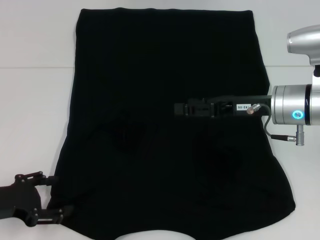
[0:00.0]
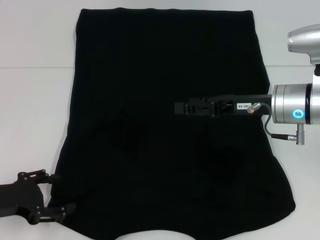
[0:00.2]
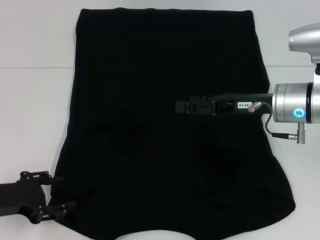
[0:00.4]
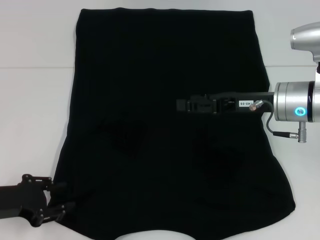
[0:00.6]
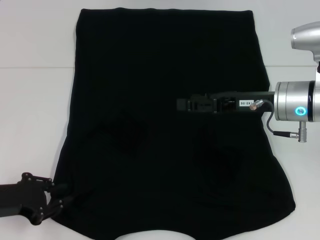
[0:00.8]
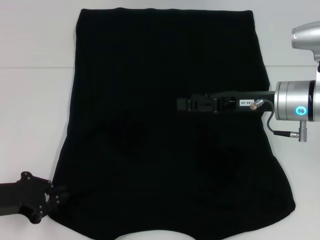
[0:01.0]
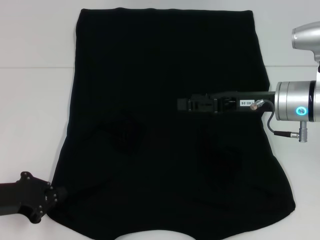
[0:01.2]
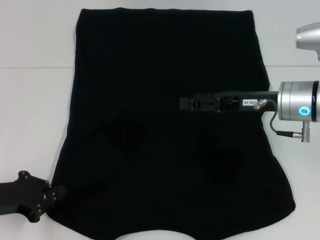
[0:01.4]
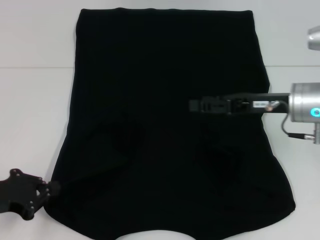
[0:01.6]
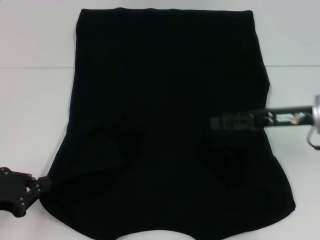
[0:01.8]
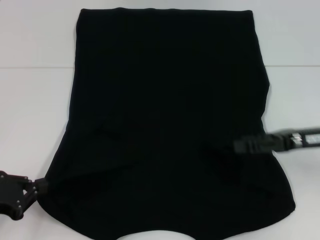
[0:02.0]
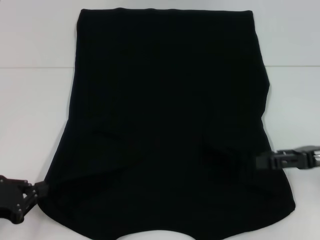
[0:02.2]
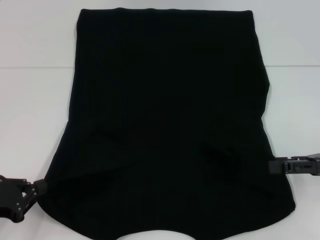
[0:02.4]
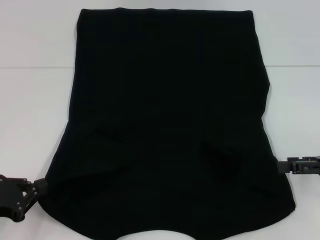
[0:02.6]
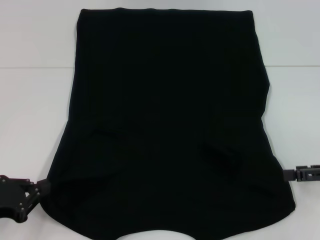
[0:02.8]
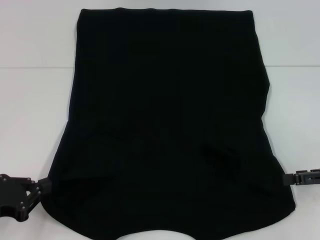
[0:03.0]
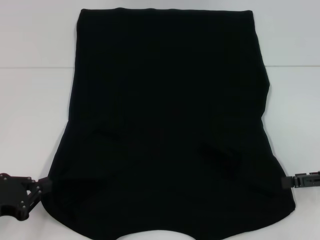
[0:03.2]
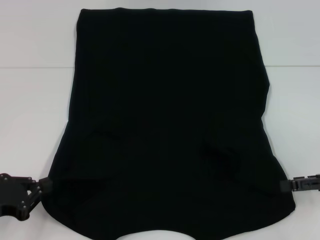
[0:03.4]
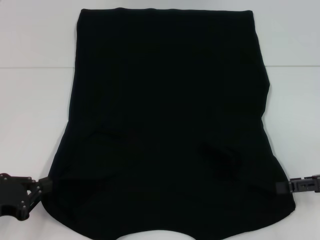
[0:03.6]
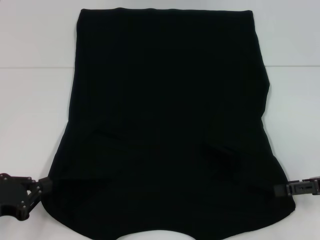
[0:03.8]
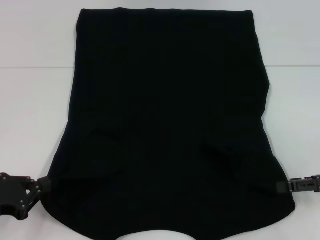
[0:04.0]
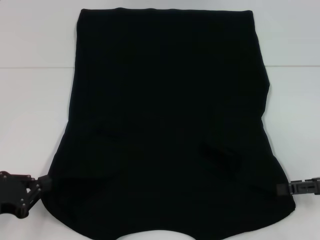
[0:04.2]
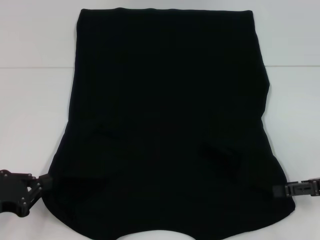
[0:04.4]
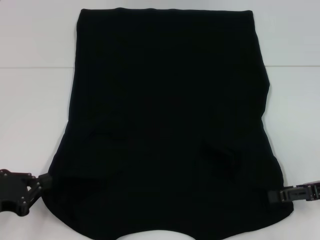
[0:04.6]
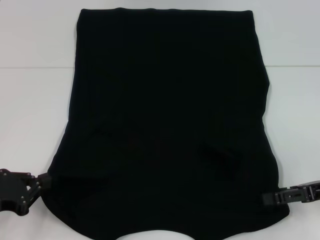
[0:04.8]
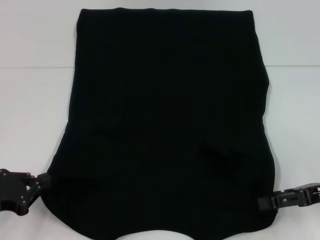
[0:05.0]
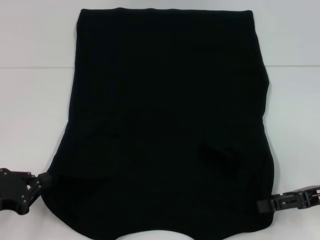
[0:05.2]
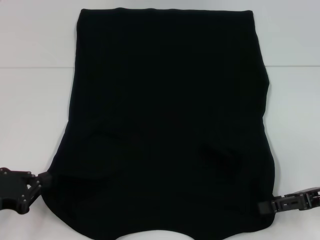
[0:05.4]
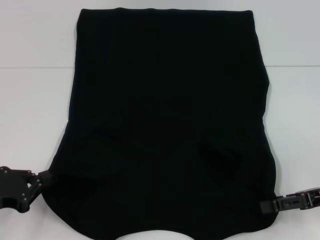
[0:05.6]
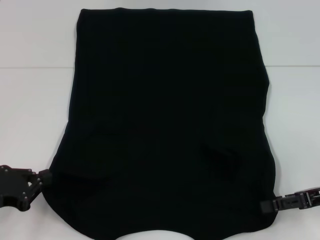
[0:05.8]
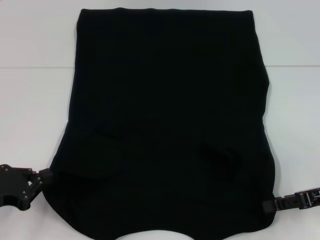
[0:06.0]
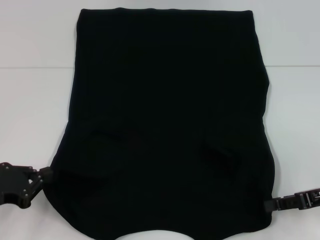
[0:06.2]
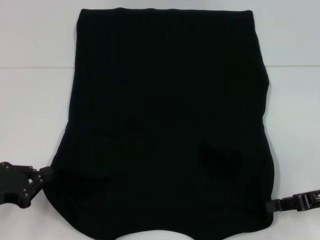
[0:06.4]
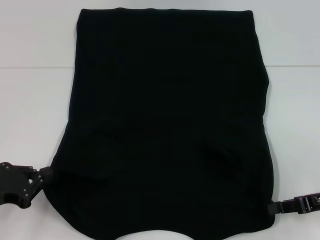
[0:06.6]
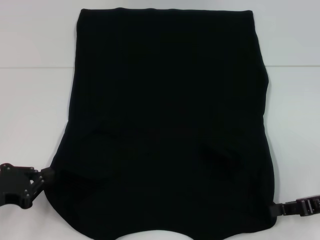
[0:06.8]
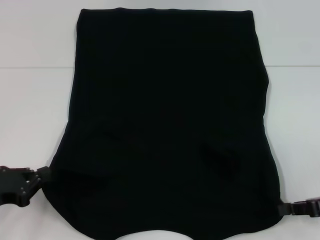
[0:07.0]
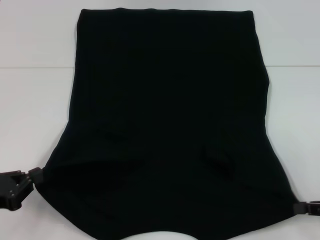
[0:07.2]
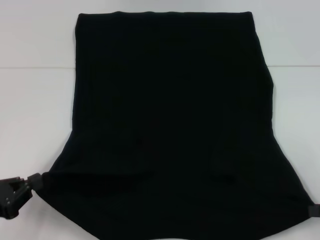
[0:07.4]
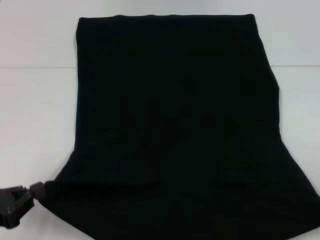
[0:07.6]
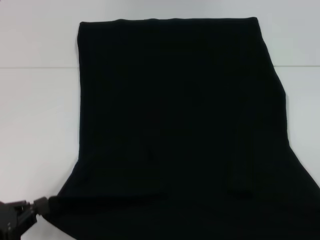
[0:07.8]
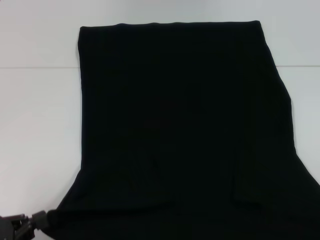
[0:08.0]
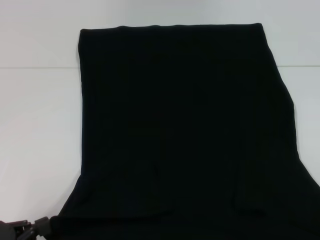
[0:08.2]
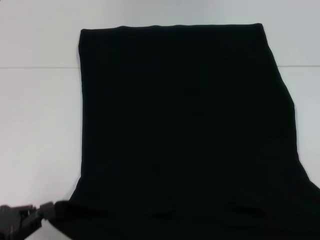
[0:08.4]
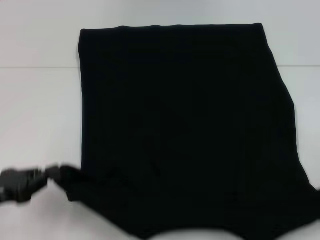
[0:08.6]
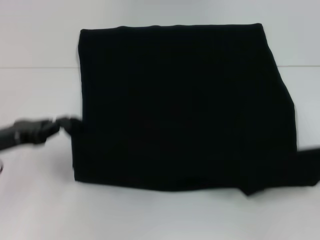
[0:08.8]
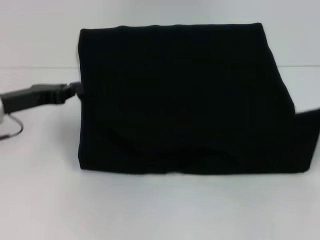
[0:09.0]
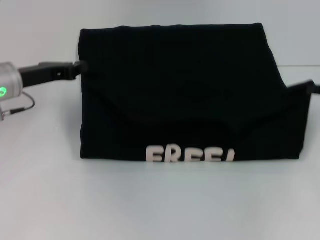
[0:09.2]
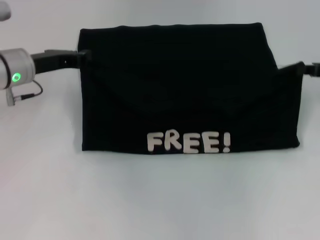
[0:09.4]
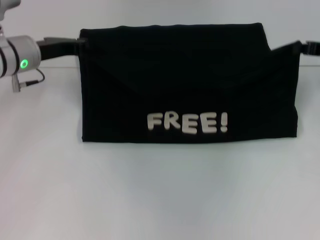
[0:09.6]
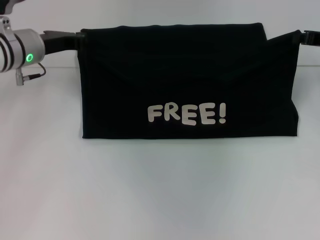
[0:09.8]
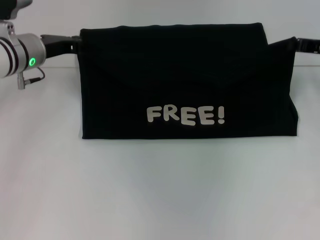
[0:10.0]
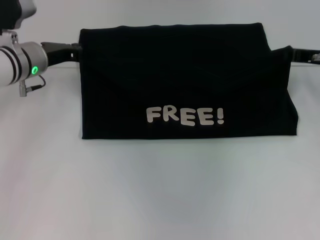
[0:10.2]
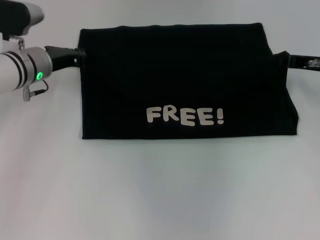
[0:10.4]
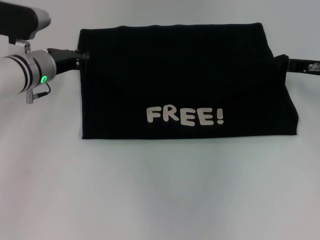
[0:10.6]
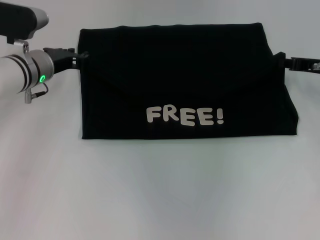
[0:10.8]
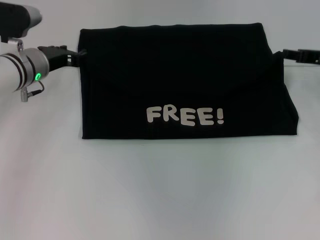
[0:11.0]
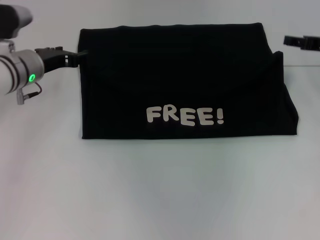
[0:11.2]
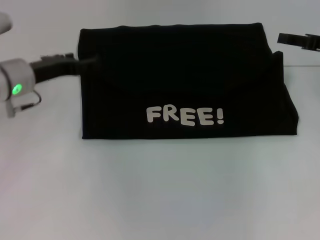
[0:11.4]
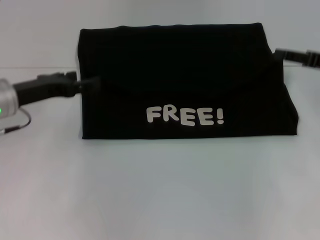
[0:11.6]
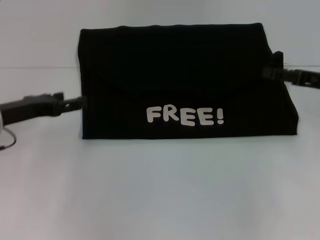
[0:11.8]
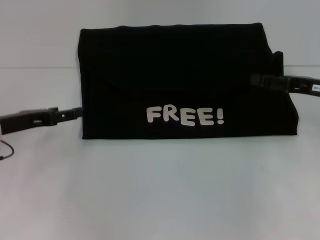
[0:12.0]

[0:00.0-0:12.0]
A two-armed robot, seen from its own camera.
Step, 0:01.8 to 0:05.2: Grab the bottom right corner with your right hand.
Step, 0:05.4 to 0:10.8: Fold the clothes with your left hand.
Step, 0:05.4 to 0:10.8: Fold the clothes with your right hand.
0:00.0 to 0:01.6: The left gripper closes its fingers.
0:01.6 to 0:03.0: The right gripper is displaced to the right and backward by some 15 cm.
0:03.0 to 0:06.0: There are only small adjustments of the grippers.
0:06.0 to 0:07.6: The right gripper heads to the right and backward, covering approximately 10 cm, and closes.
0:07.6 to 0:09.0: The right gripper is displaced forward and upward by roughly 10 cm; the left gripper travels forward by about 15 cm.
0:09.0 to 0:10.4: The left gripper moves forward and to the right, roughly 10 cm. Meanwhile the right gripper travels forward and to the left by some 15 cm.
0:10.4 to 0:12.0: The right gripper travels backward by roughly 5 cm, and opens its fingers. The left gripper is displaced backward and to the left by roughly 15 cm, and opens its fingers.

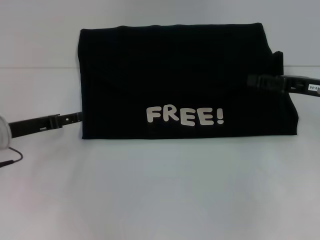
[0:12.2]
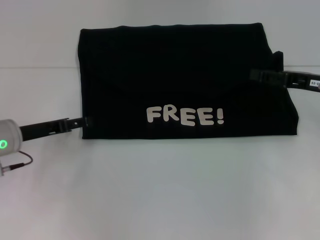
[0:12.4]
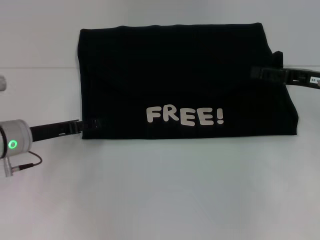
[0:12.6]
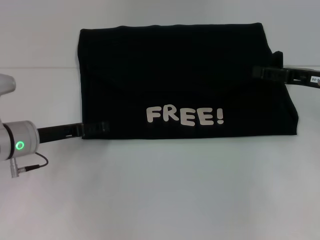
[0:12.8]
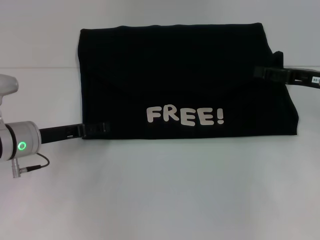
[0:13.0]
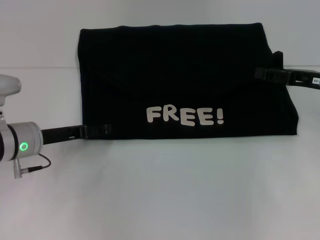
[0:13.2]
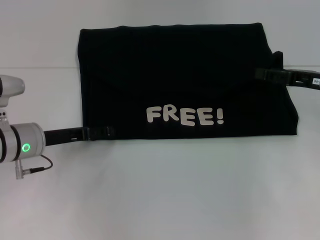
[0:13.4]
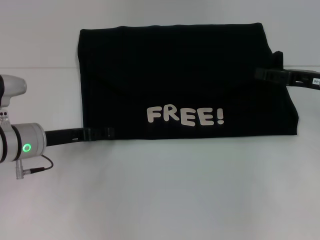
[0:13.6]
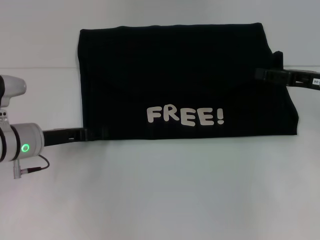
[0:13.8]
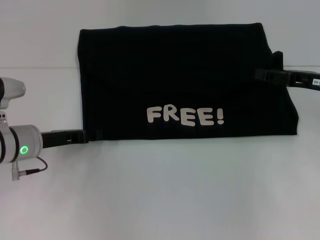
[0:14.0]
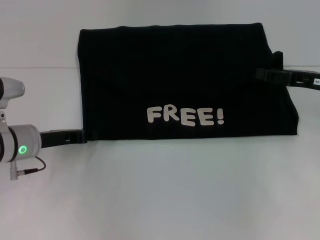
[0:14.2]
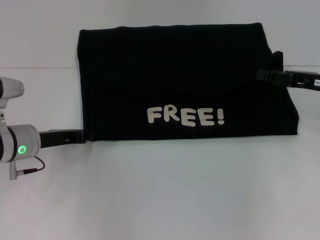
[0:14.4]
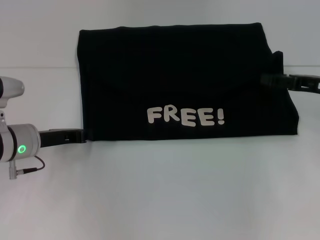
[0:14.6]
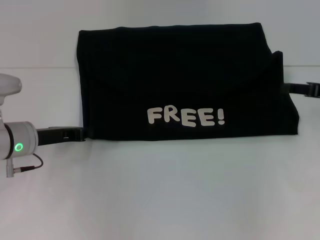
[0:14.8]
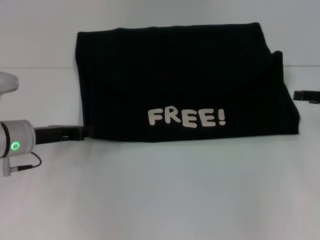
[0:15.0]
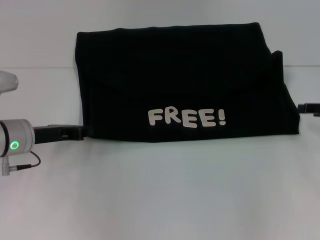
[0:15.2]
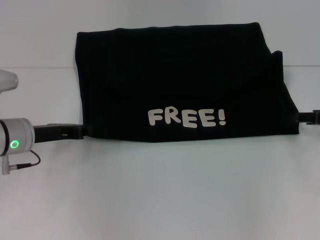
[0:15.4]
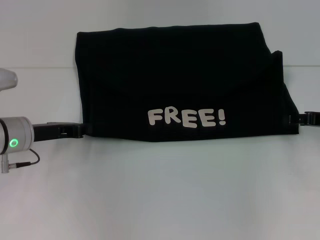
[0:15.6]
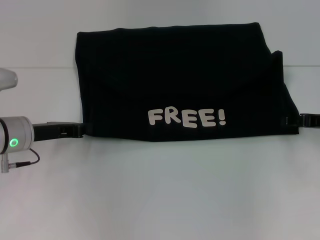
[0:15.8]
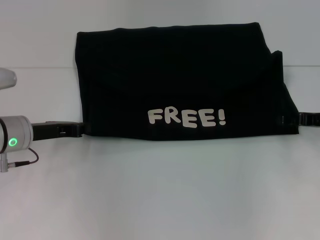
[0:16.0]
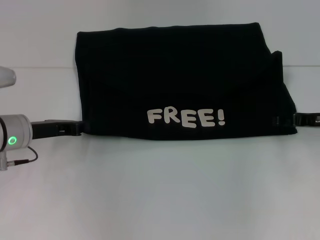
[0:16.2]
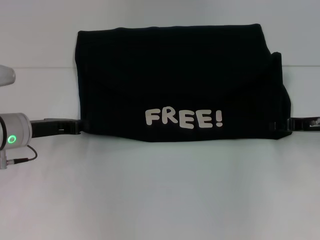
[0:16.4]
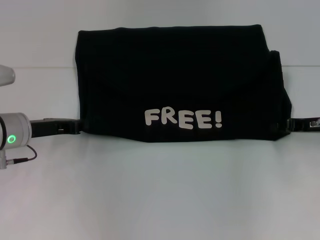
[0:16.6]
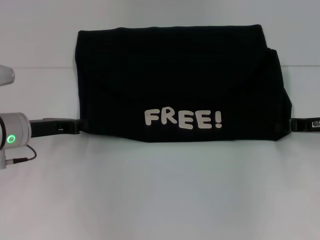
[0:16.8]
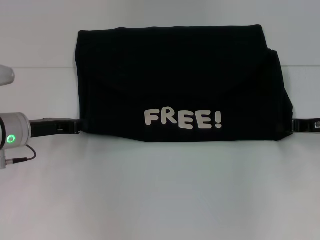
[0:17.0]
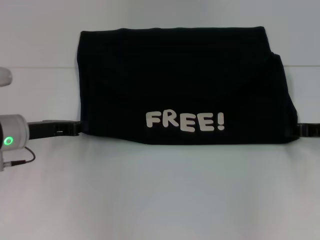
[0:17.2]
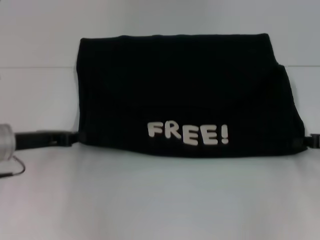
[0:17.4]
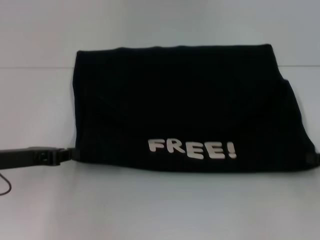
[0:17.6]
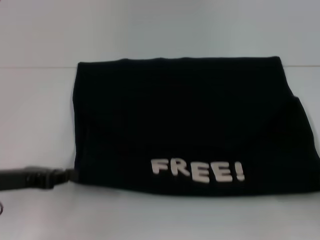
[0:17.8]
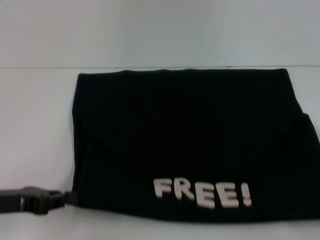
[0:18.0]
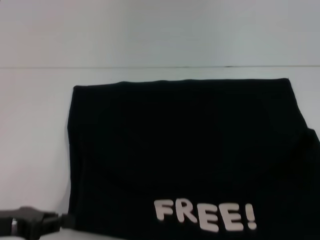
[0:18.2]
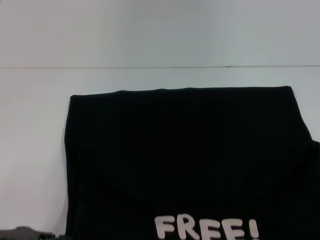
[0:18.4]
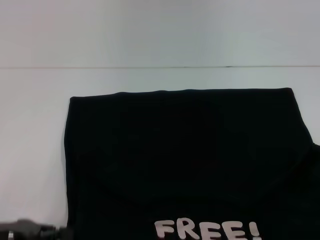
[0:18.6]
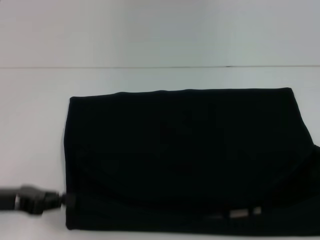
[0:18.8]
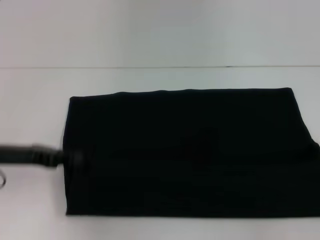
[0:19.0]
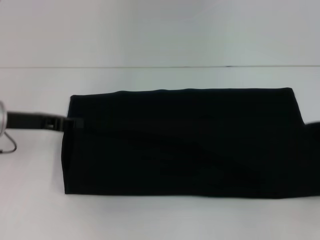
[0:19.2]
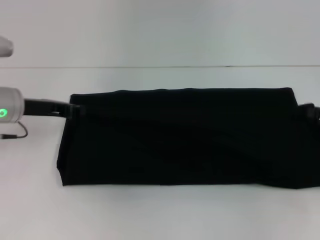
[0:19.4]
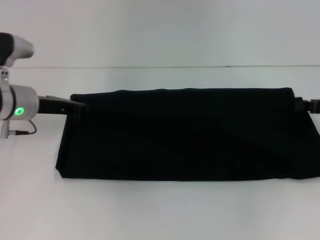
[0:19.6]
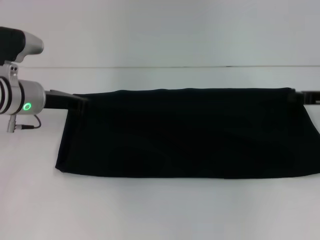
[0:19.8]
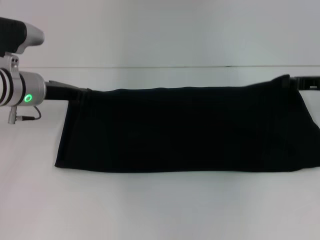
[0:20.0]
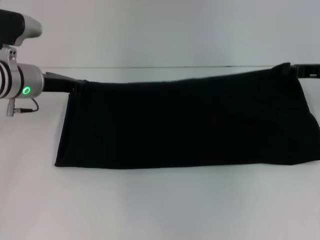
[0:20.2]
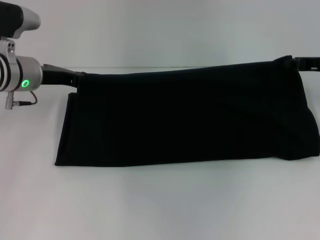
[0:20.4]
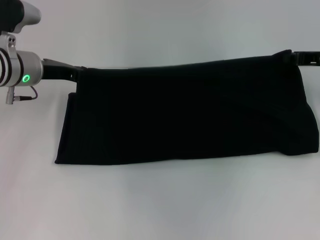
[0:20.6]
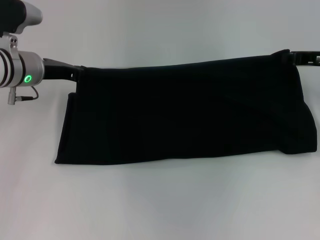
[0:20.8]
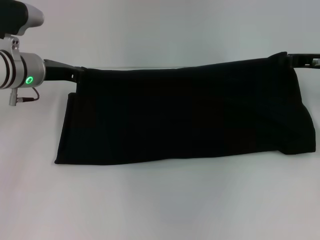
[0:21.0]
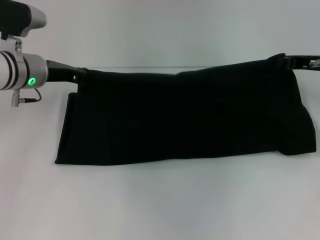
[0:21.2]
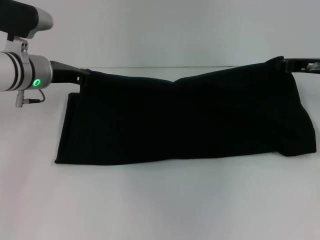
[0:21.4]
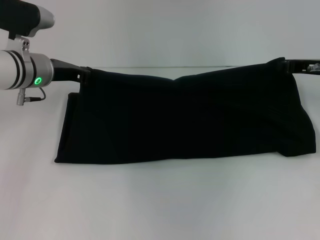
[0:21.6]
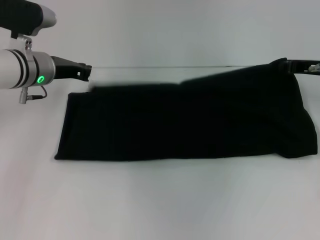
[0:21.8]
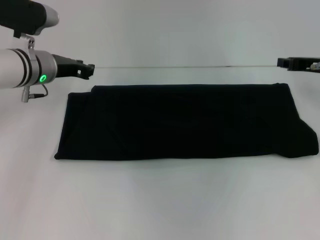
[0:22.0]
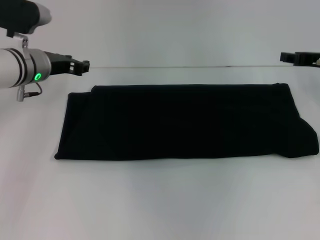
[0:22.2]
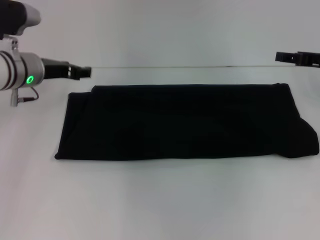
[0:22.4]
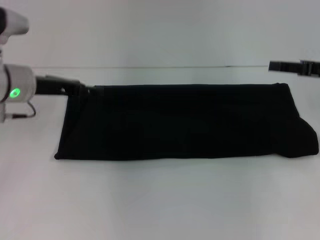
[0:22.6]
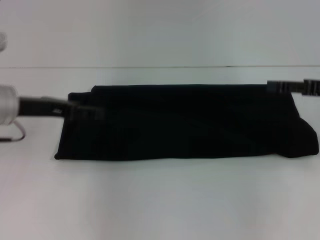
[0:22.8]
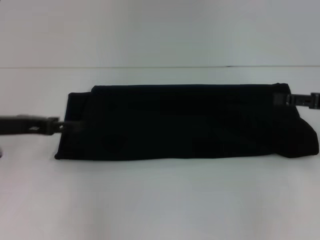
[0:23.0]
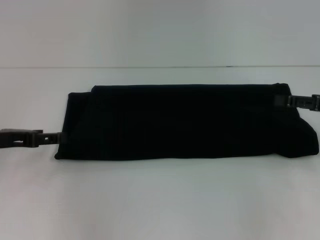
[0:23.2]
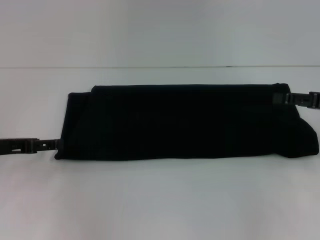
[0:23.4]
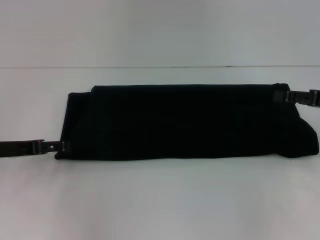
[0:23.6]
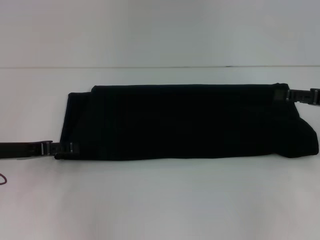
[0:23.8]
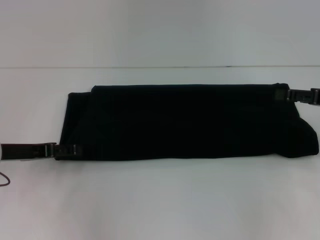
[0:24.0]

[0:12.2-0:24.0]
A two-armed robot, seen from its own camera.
Step, 0:12.2 to 0:18.0: Pull the clothes with your left hand.
Step, 0:12.2 to 0:18.0: Pull the clothes with your right hand.
Step, 0:18.2 to 0:22.2: Fold the clothes with your right hand.
0:12.2 to 0:13.6: The left gripper changes place by about 5 cm.
0:13.6 to 0:15.2: The right gripper heads to the right, covering about 5 cm. Meanwhile the left gripper closes up.
0:15.2 to 0:16.6: The right gripper travels to the left by some 5 cm.
0:16.6 to 0:18.2: The right gripper goes about 20 cm backward and to the right, and closes up. Meanwhile the left gripper moves backward, approximately 15 cm.
0:18.2 to 0:19.6: The two grippers go roughly 20 cm forward.
0:19.6 to 0:21.0: The right gripper moves forward, roughly 5 cm.
0:21.0 to 0:22.6: The left gripper opens up, while the right gripper shifts by approximately 5 cm, and opens.
0:22.6 to 0:24.0: The left gripper heads backward, downward and to the left, covering approximately 10 cm.
